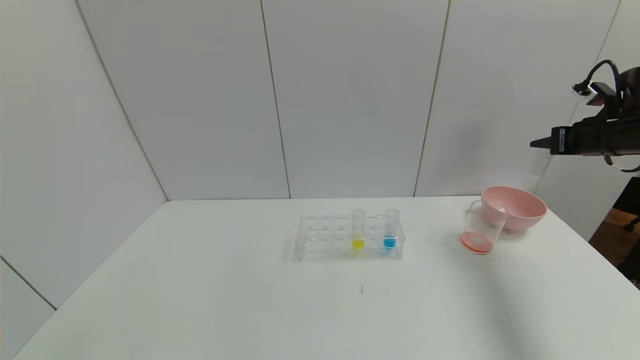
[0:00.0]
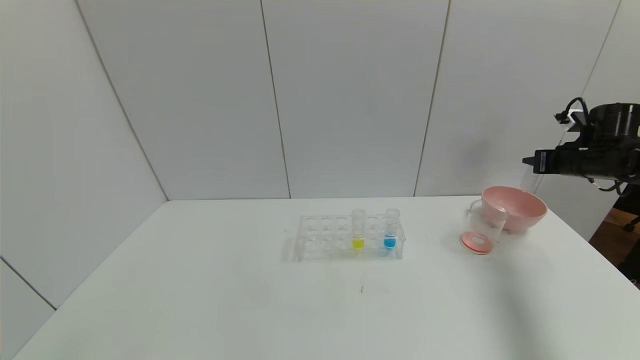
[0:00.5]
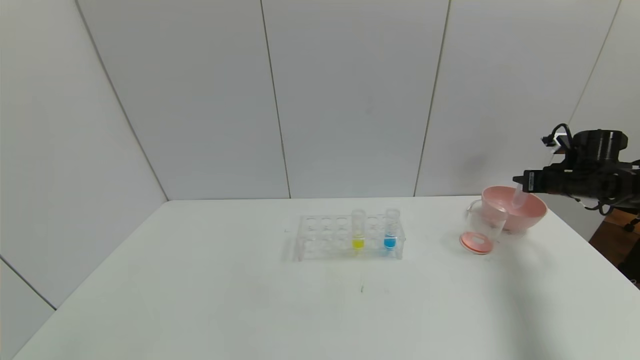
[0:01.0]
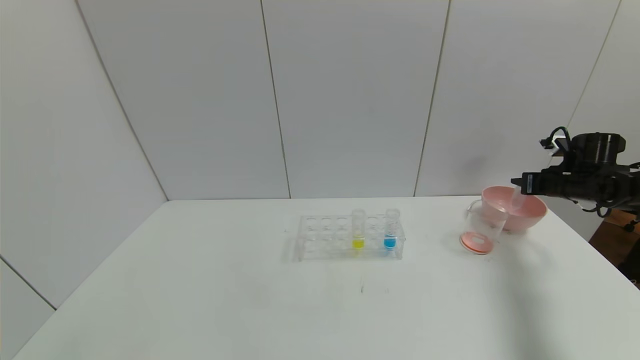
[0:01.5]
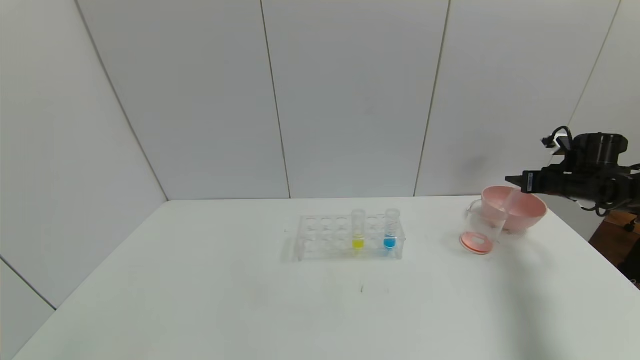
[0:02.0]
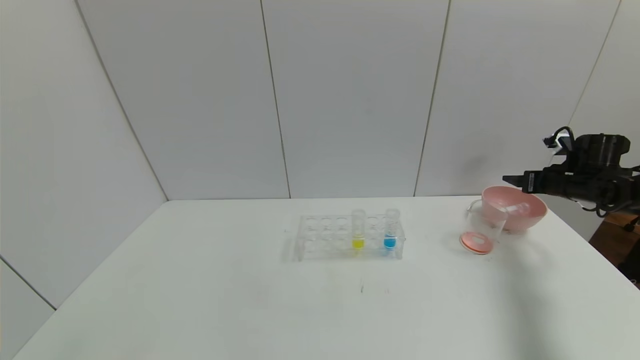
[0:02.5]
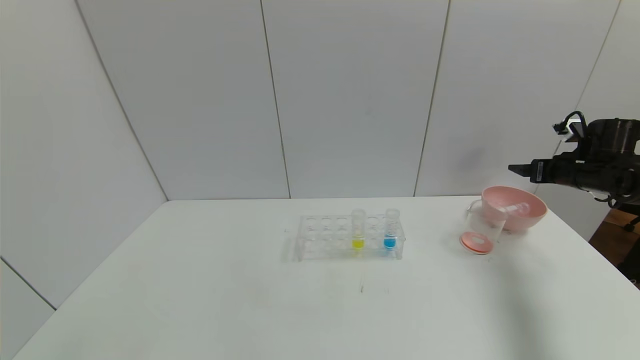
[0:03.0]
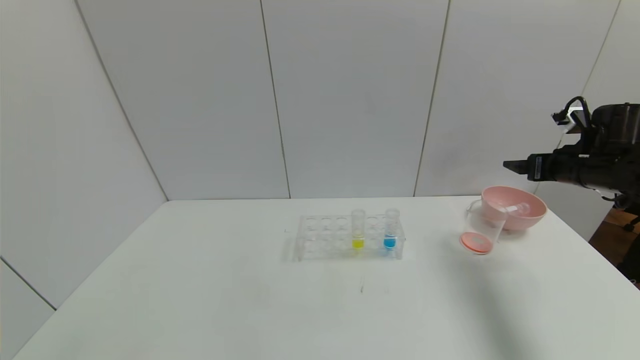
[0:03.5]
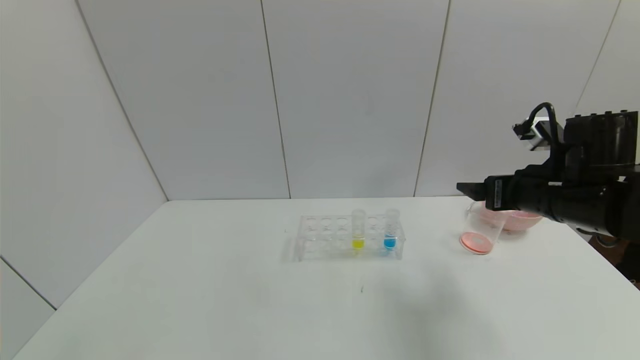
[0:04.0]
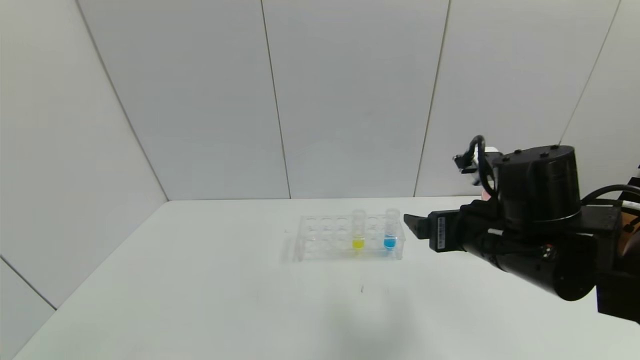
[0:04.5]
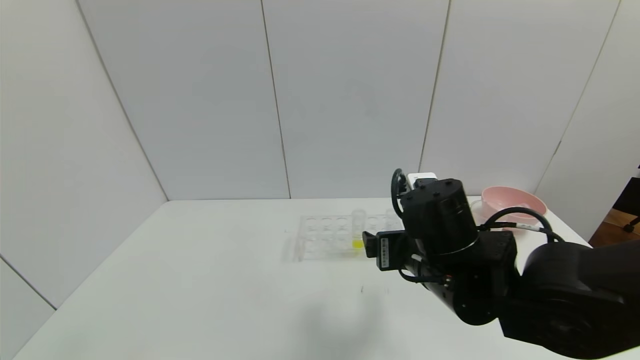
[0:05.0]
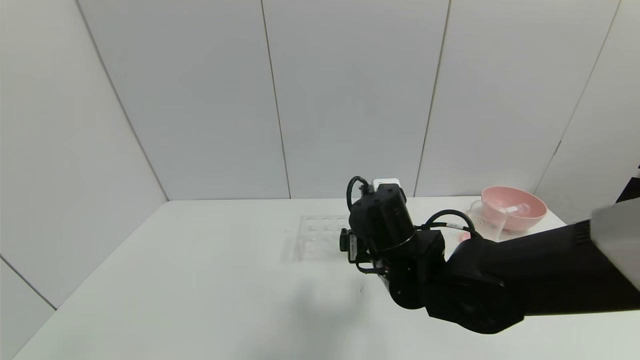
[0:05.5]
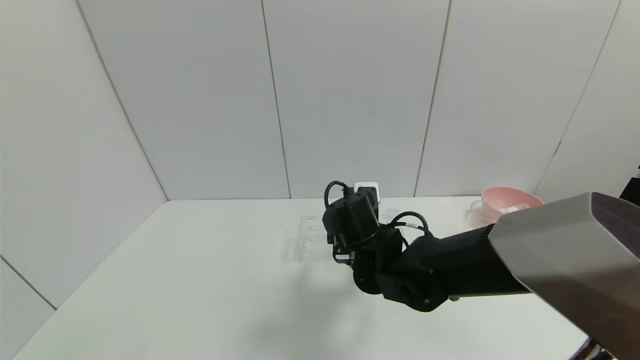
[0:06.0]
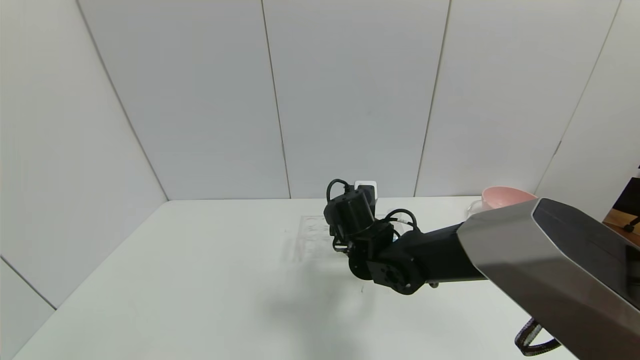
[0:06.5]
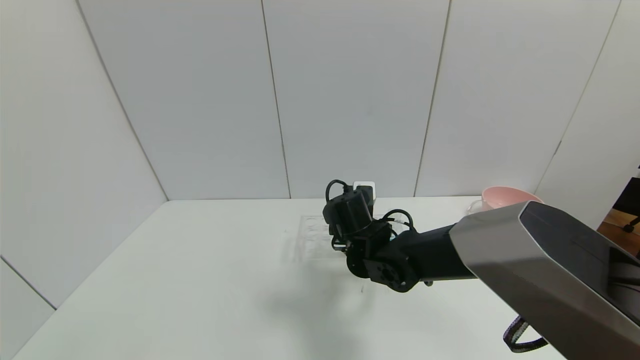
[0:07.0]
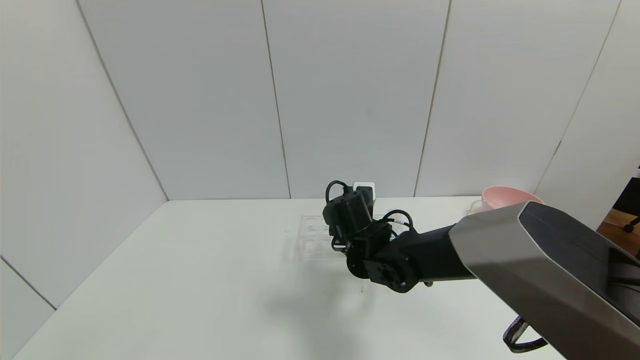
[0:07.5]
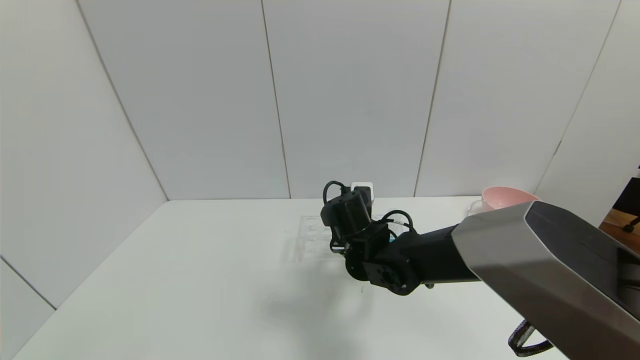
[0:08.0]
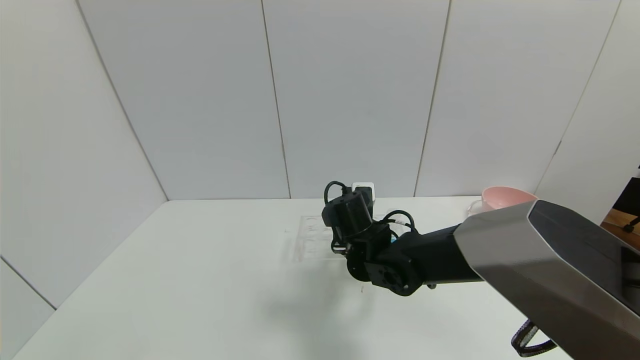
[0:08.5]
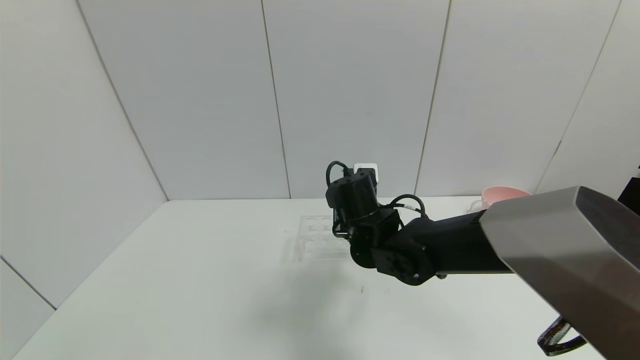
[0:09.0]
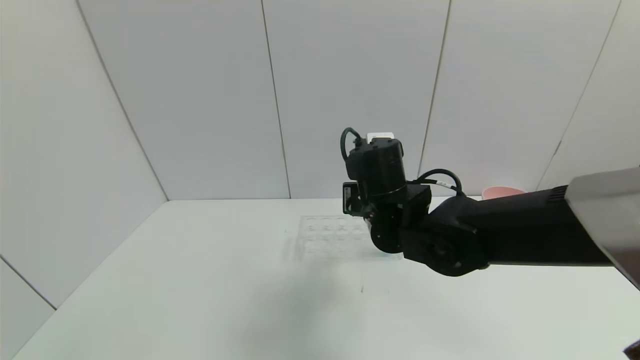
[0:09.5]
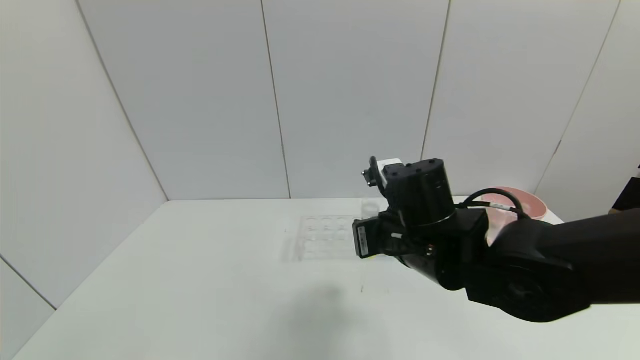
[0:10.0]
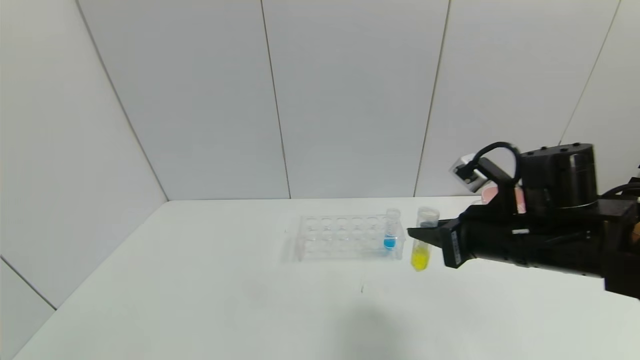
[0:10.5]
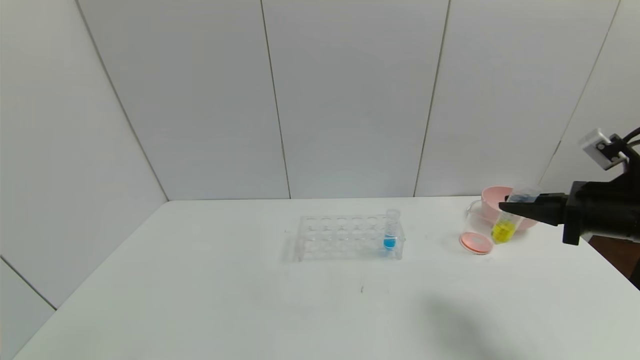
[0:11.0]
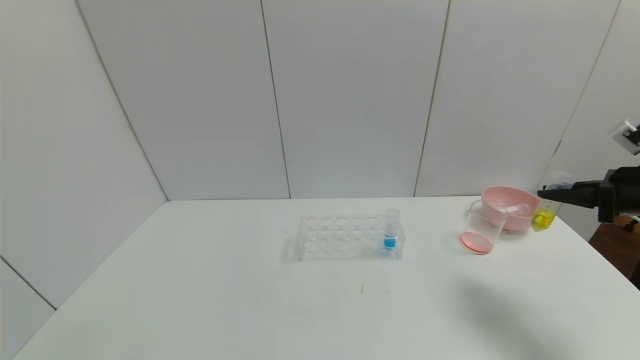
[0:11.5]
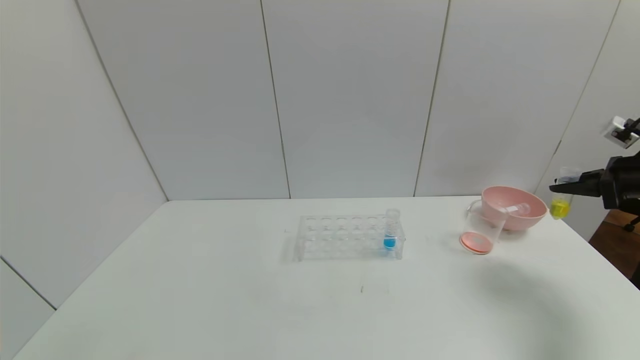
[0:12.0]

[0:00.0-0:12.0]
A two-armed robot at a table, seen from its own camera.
Task of the whole recording: pick up the test tube with yellow pigment and the test tube with red pigment by grippers and pour them into the beaker.
Step, 0:00.5 to 0:04.0: Place the test tube into the bowl with right gripper.
Step, 0:04.5 to 0:10.5: Pick up the test tube containing the yellow reagent with right gripper.
0:00.0 to 0:02.0: The right gripper travels downward by about 10 cm, and opens up.
0:02.0 to 0:04.0: The right gripper is displaced to the left and backward by approximately 25 cm, and opens.
0:04.0 to 0:06.0: The right gripper moves to the left and downward, approximately 25 cm.
0:06.0 to 0:08.0: The right gripper closes.
0:08.0 to 0:10.0: The right gripper is displaced backward, upward and to the right by some 15 cm.
0:10.0 to 0:12.0: The right gripper moves to the right, some 40 cm.

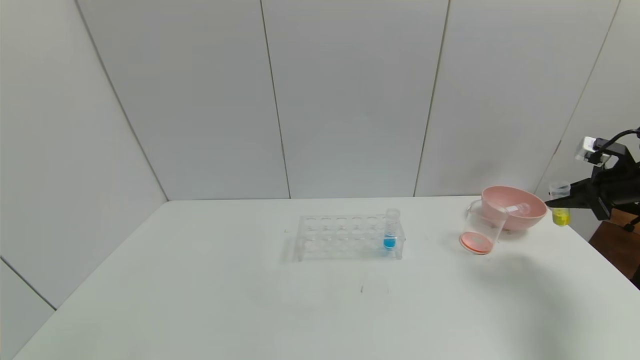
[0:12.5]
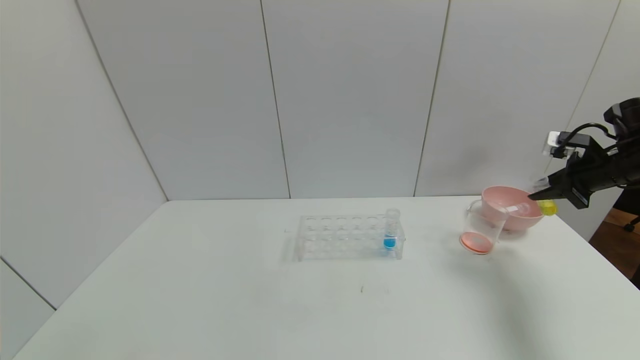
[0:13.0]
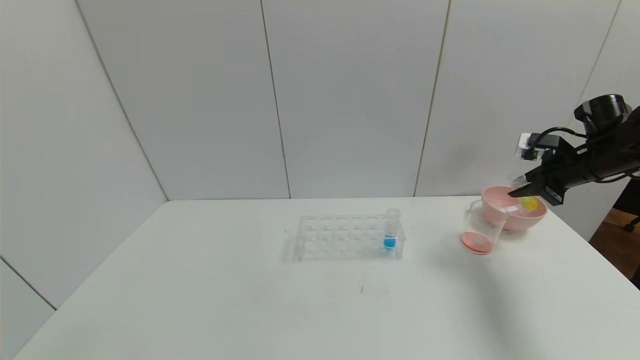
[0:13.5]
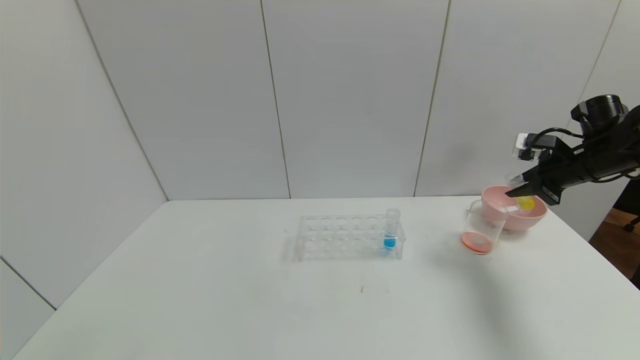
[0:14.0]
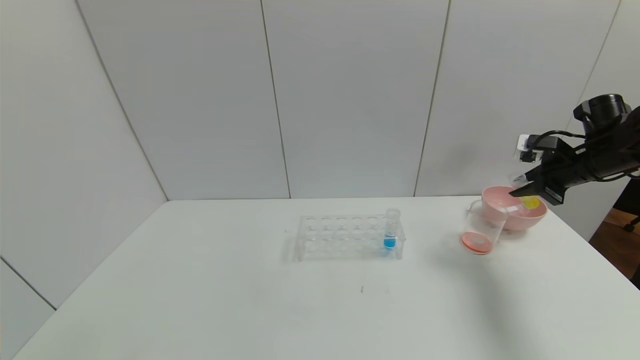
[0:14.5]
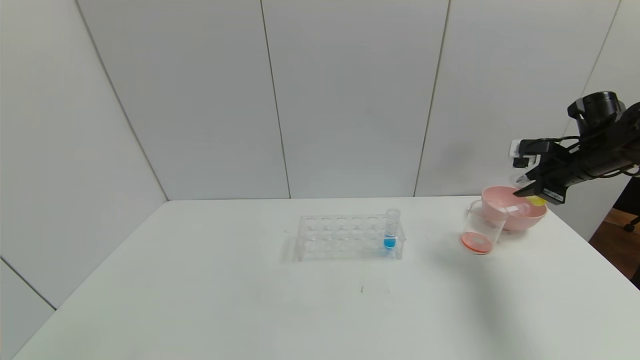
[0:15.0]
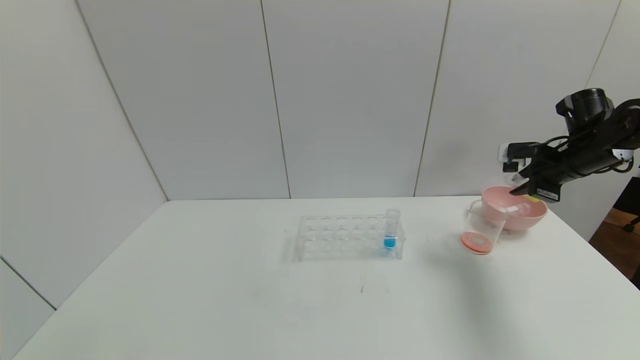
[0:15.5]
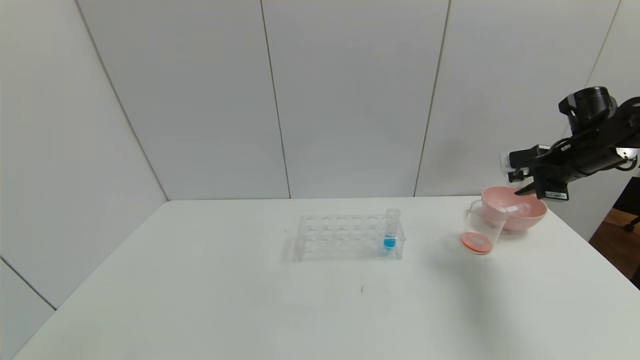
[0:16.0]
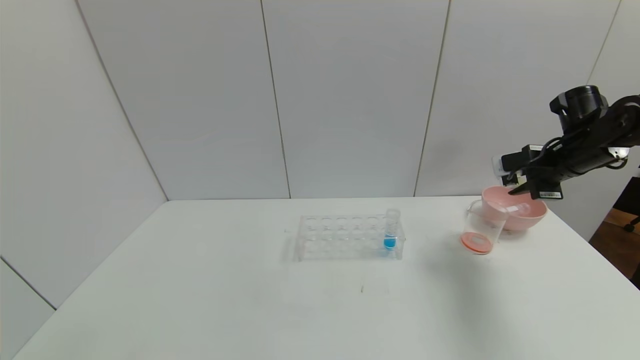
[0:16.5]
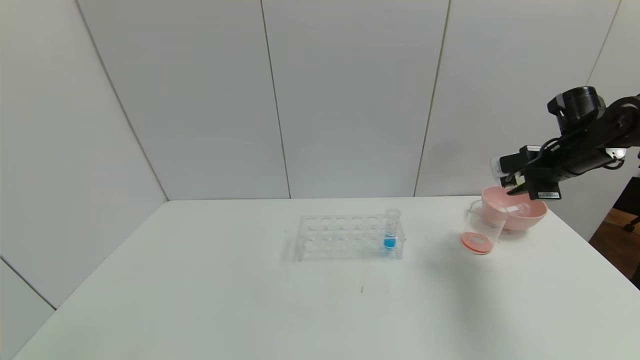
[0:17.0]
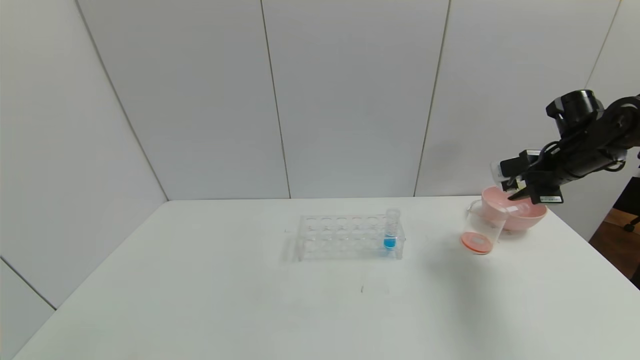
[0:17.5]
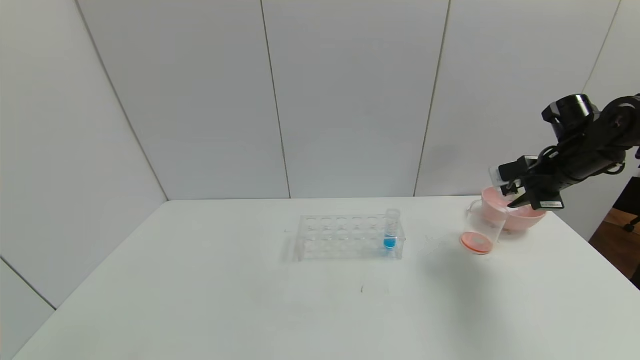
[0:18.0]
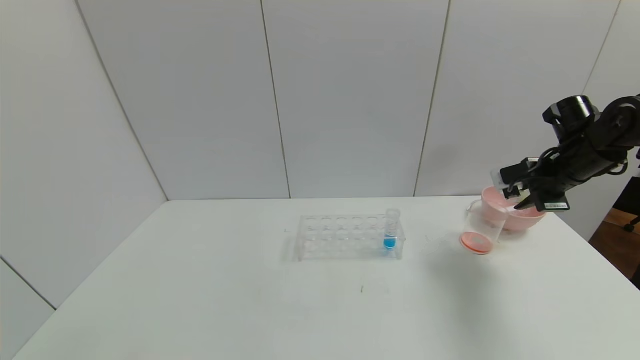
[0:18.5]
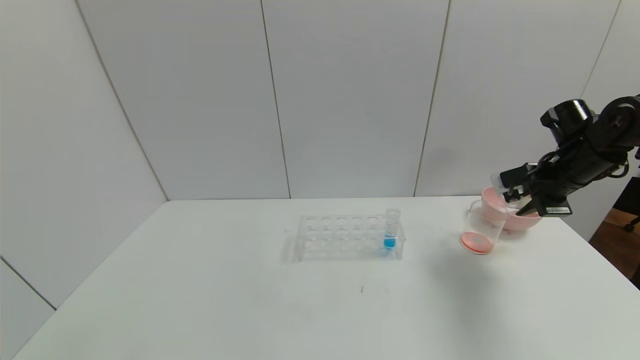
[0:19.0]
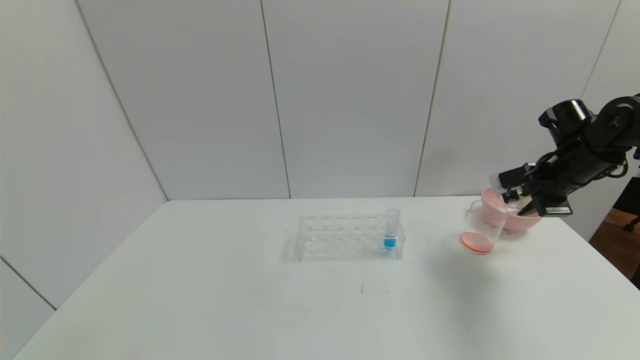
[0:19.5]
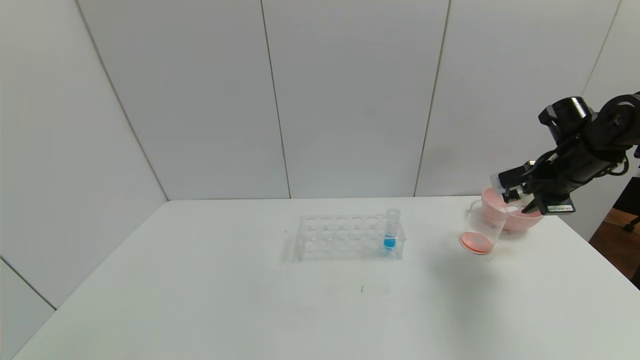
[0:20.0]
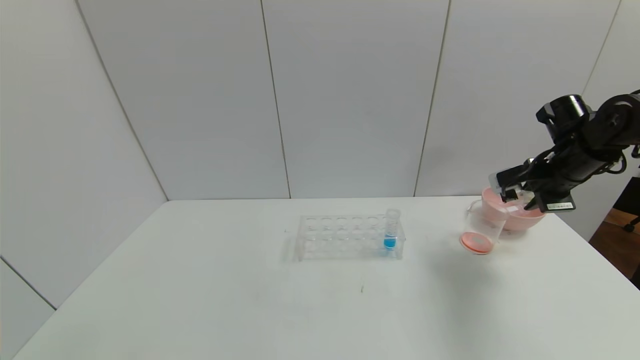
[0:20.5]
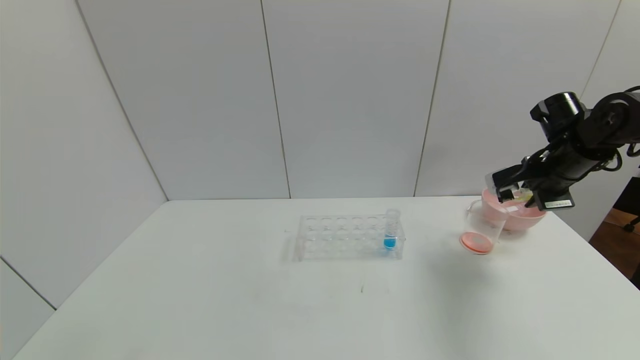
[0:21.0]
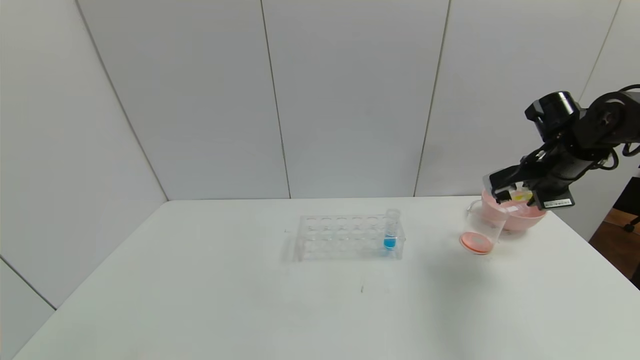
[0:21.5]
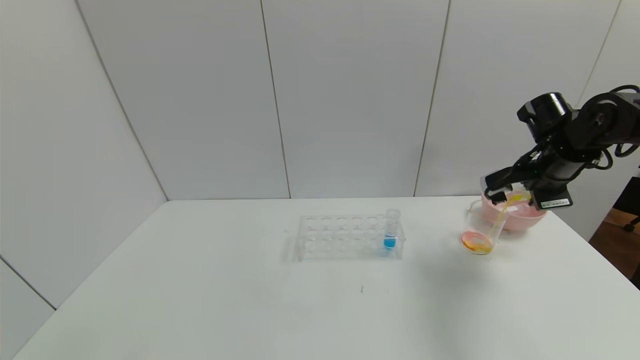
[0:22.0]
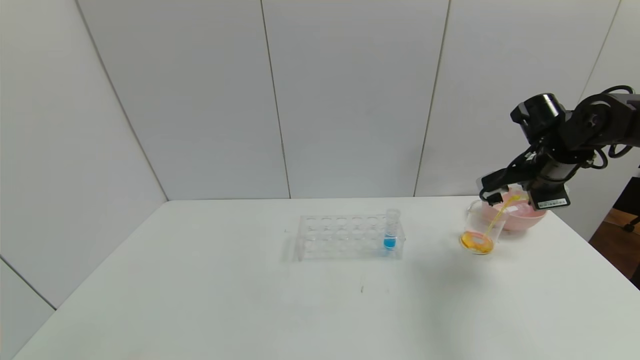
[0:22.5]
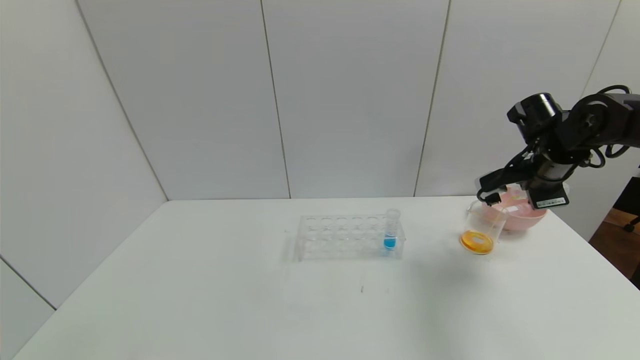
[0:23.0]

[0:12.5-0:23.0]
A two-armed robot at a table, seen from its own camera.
Task of the whole recording: pick up the test tube with yellow pigment and the test tube with red pigment by grippers and pour them into the beaker.
0:12.5 to 0:14.5: The right gripper is displaced to the left by some 5 cm.
0:16.5 to 0:21.0: The grippers move only a little.
0:21.0 to 0:23.0: There are only small adjustments of the grippers.
